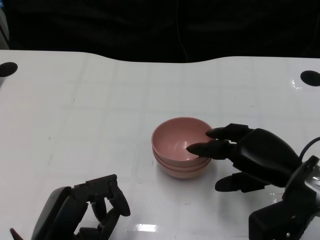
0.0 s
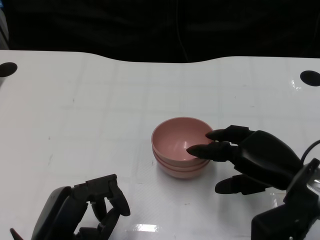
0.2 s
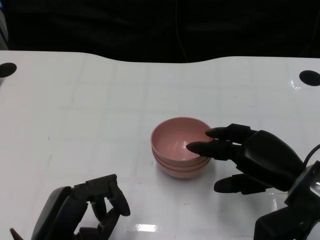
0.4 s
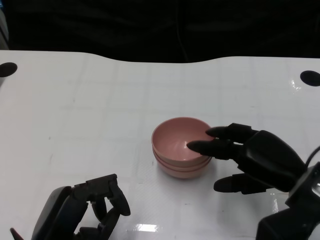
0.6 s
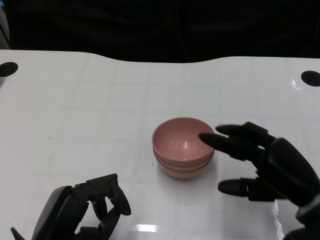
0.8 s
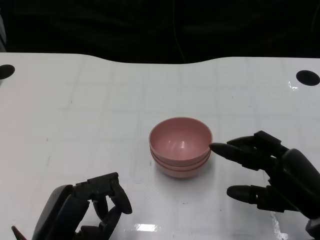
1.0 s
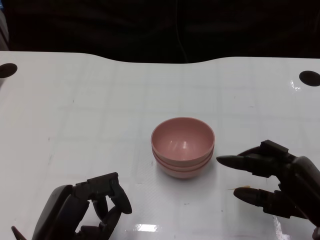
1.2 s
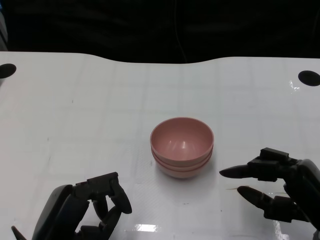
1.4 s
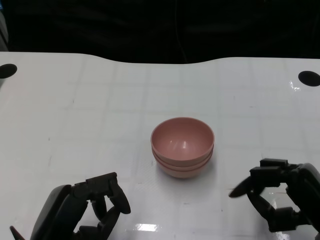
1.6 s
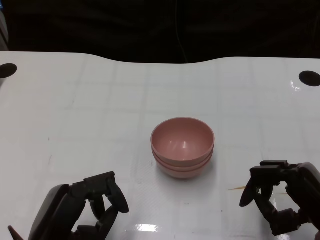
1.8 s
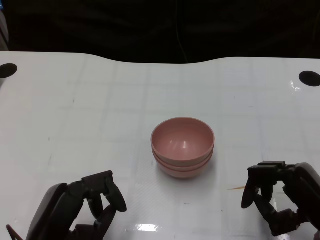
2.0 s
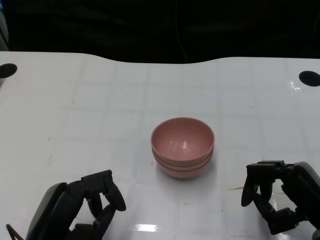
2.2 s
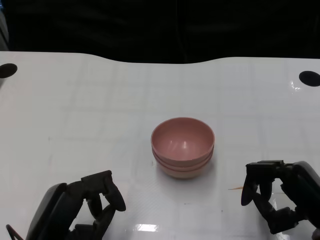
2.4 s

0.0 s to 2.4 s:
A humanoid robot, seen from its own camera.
Task of the whole recording: Pick up the bowl on one side of the table and place it on top of the middle bowl, then pick up the bowl on the other side of the table and place it on top of the middle bowls.
0.0 to 1.2 s: The right hand goes approximately 5 cm backward.
1.2 to 2.4 s: The hands make only small movements.
